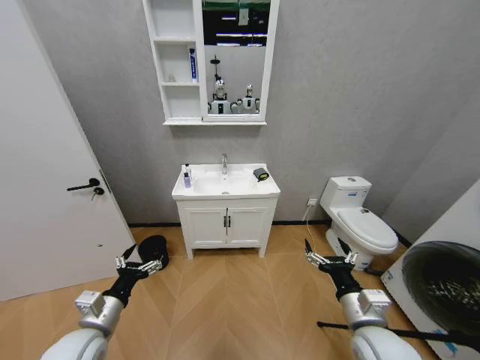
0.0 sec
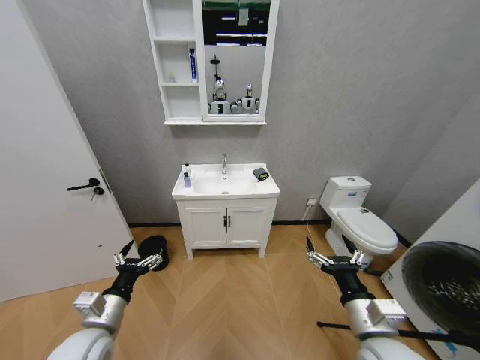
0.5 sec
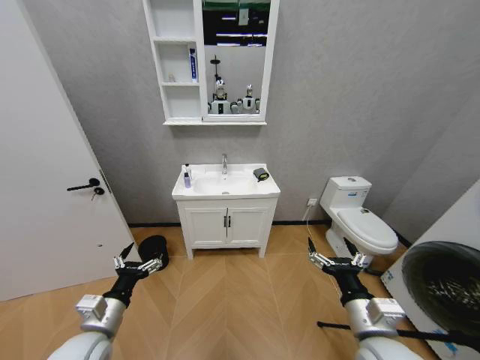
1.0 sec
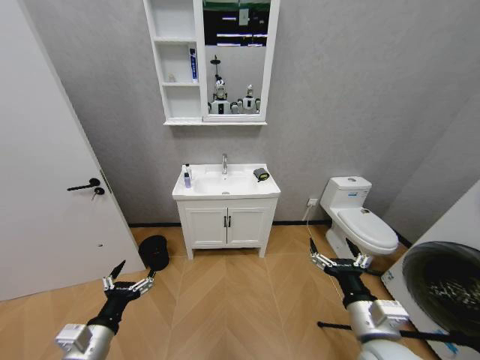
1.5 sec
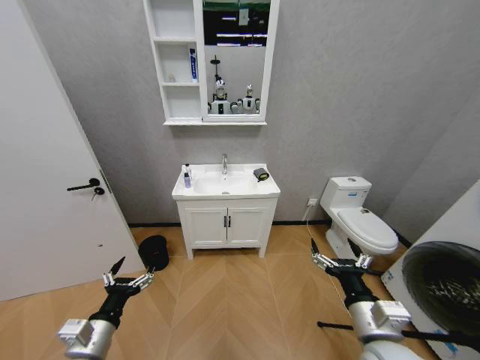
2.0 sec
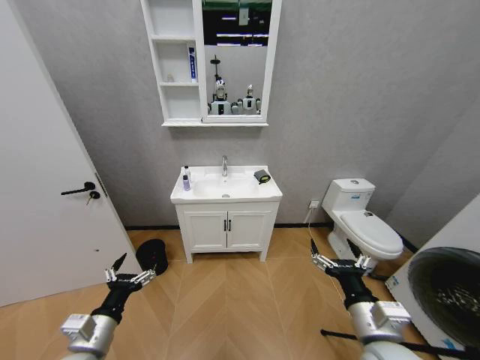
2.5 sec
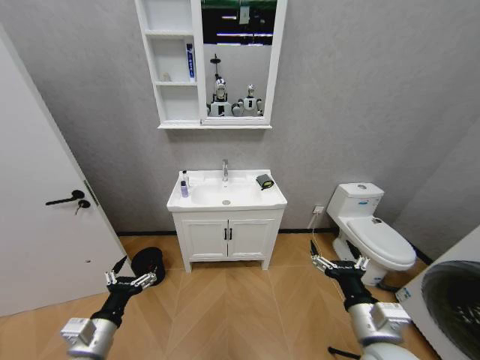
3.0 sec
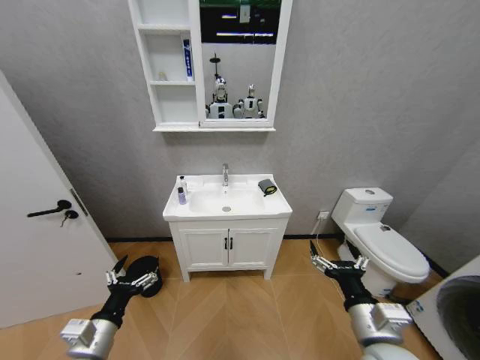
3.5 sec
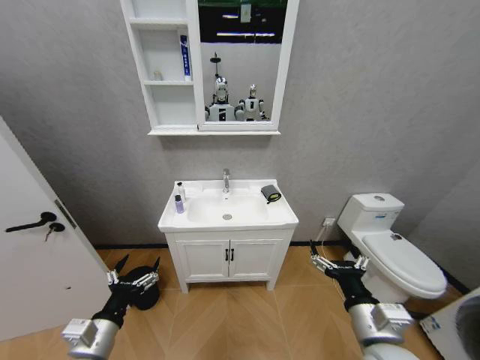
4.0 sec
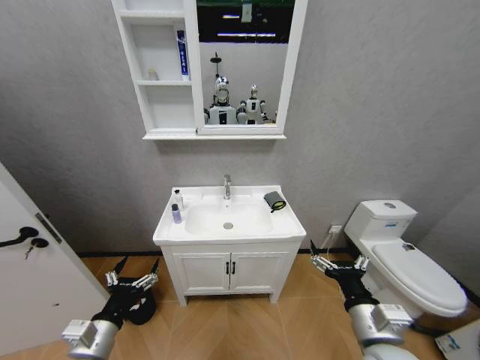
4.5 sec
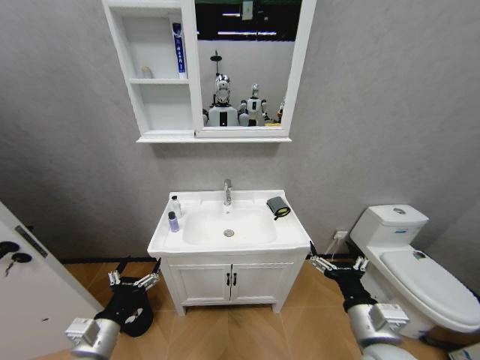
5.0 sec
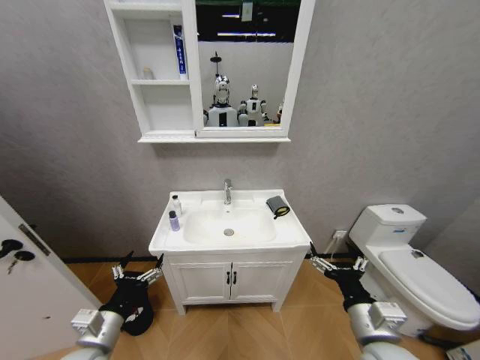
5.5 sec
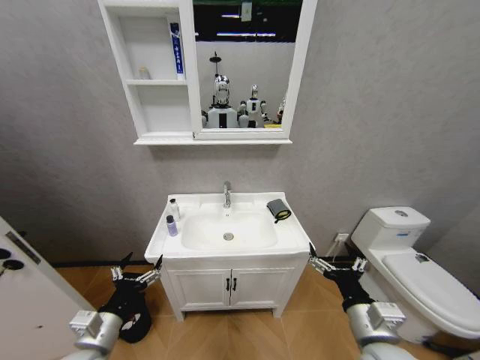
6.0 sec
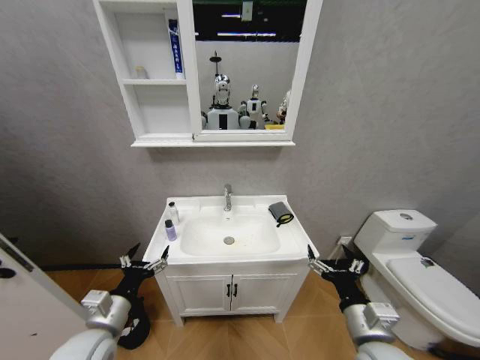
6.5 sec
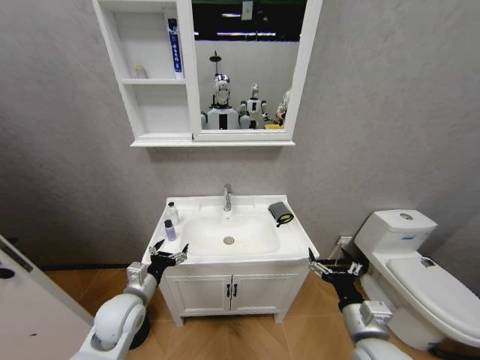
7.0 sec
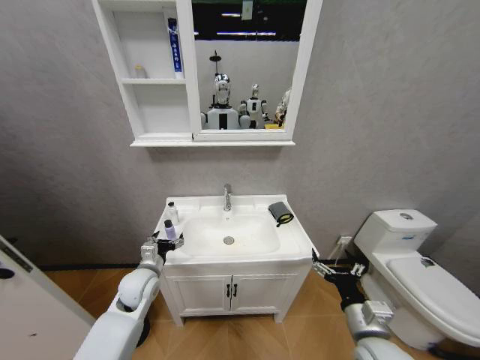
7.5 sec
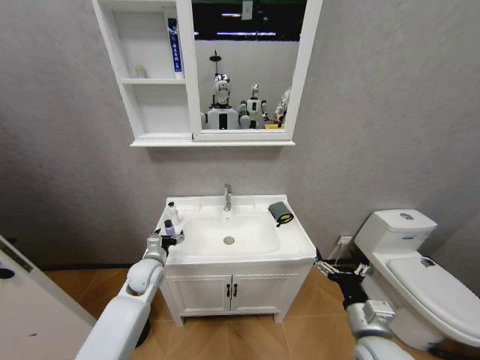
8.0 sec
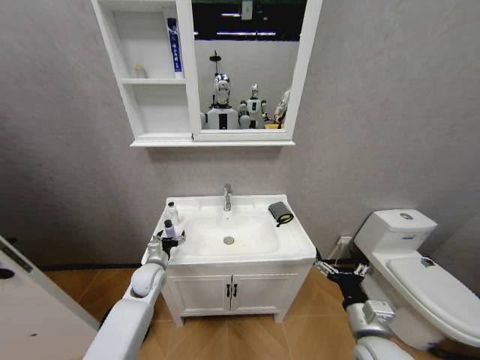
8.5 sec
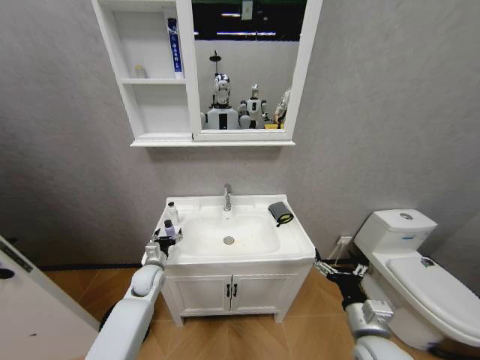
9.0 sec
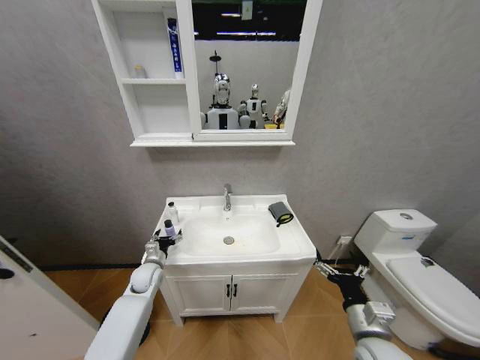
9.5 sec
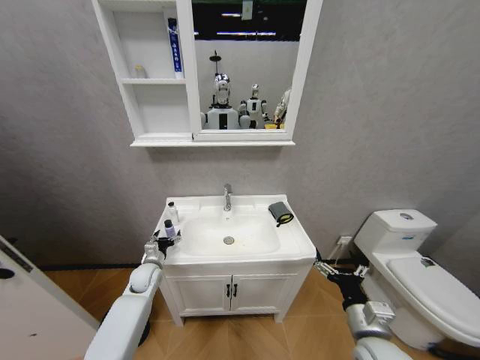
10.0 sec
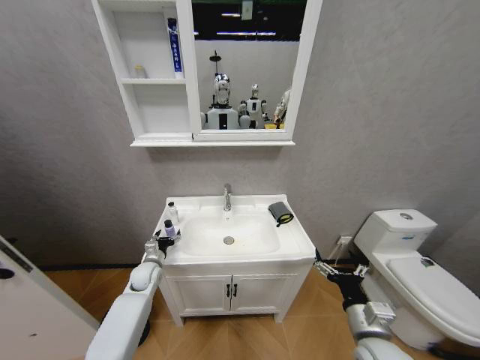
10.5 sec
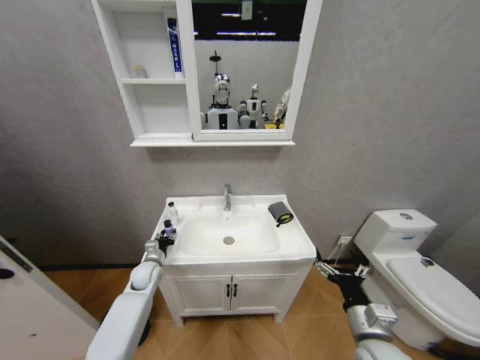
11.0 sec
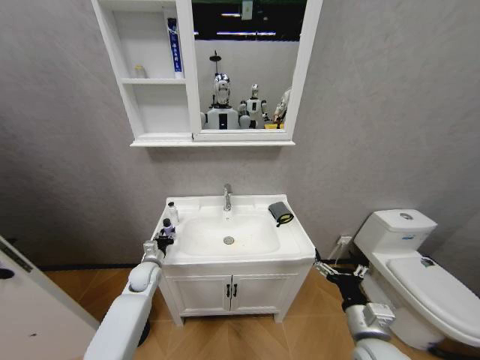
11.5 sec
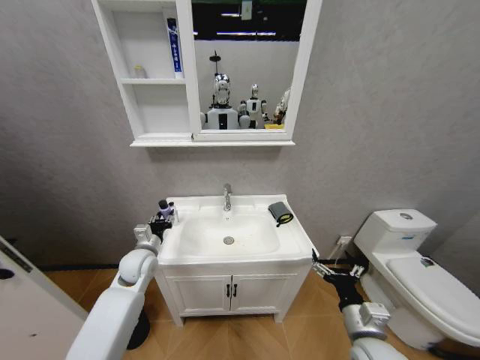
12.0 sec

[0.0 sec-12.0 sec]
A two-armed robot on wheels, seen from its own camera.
Task of the whole recording: Move facial cleanser and shampoo from washbasin to cabinet, then wipe washbasin with towel.
6.0 sec to 8.0 sec: The right gripper travels downward by about 5 cm, while the left gripper goes about 20 cm forward.
8.0 sec to 10.0 sec: The left gripper shifts about 5 cm downward.
10.0 sec to 12.0 sec: The left gripper heads upward, covering about 10 cm, and closes up.

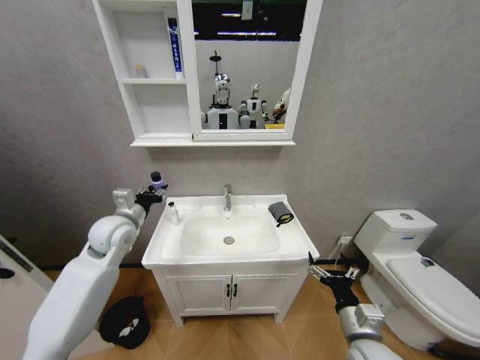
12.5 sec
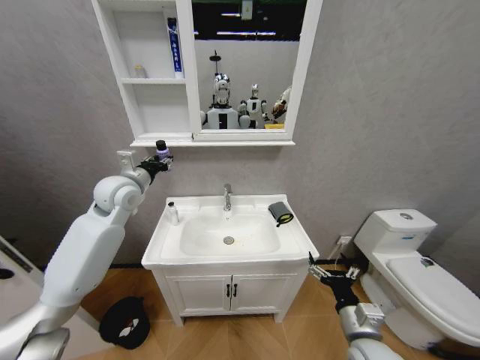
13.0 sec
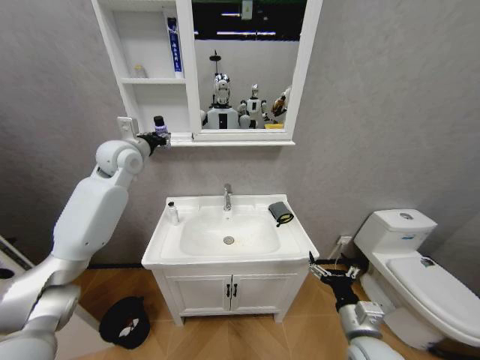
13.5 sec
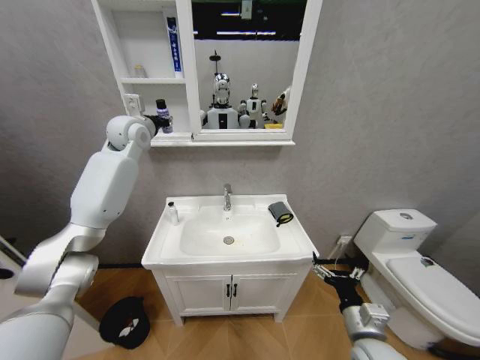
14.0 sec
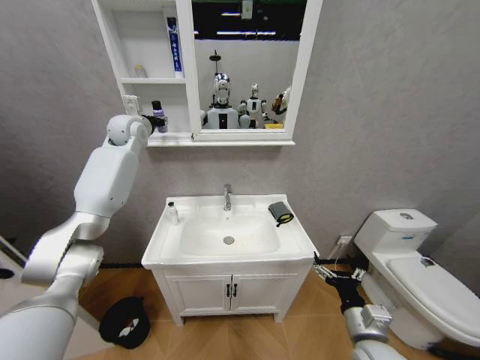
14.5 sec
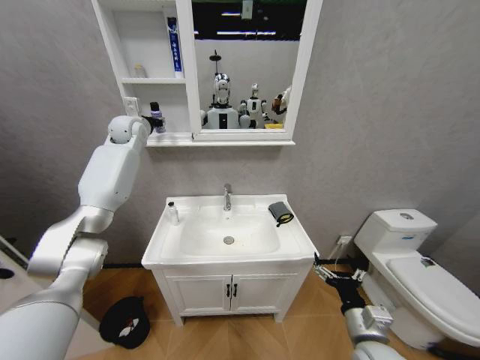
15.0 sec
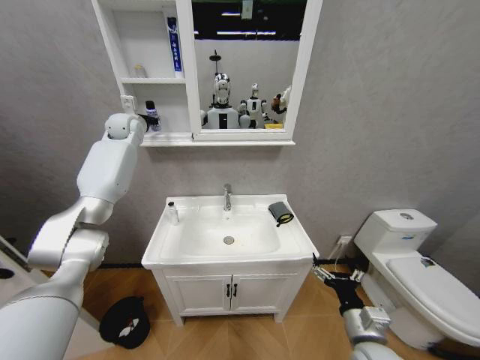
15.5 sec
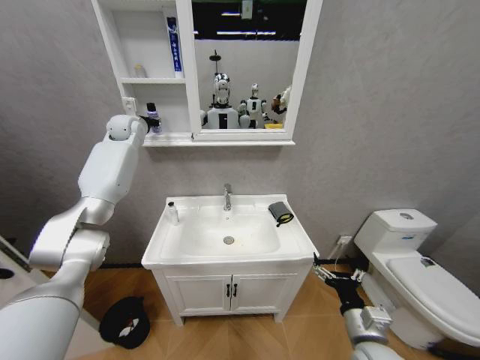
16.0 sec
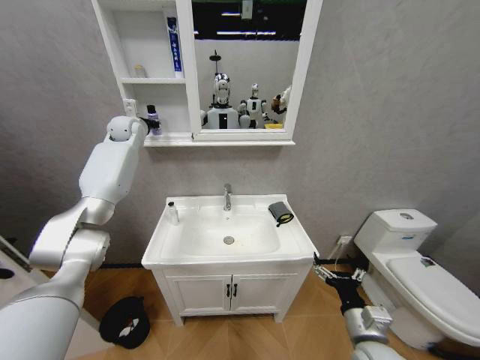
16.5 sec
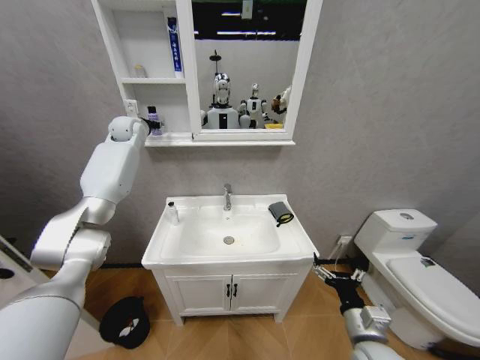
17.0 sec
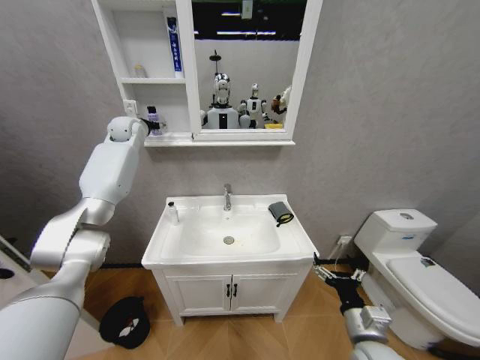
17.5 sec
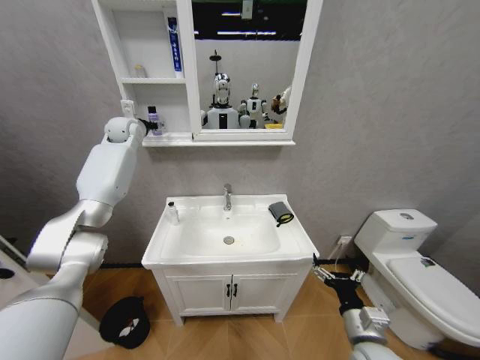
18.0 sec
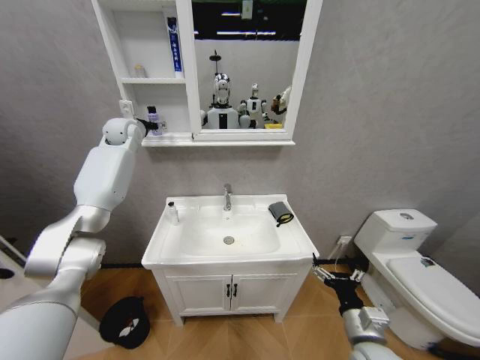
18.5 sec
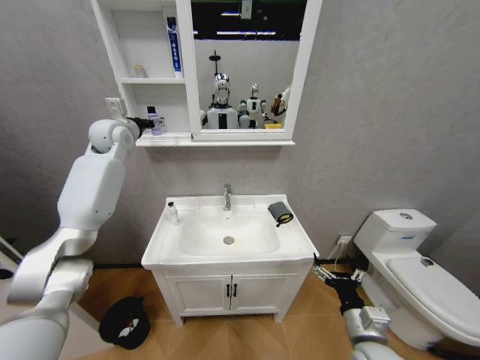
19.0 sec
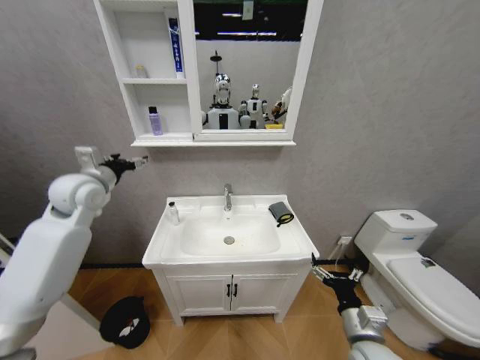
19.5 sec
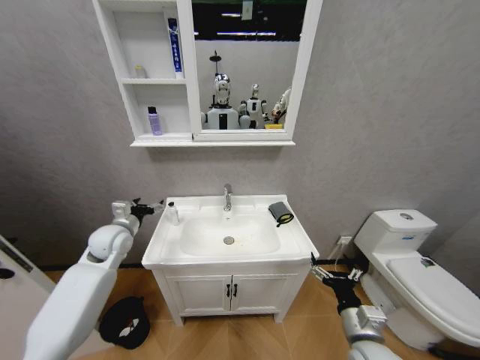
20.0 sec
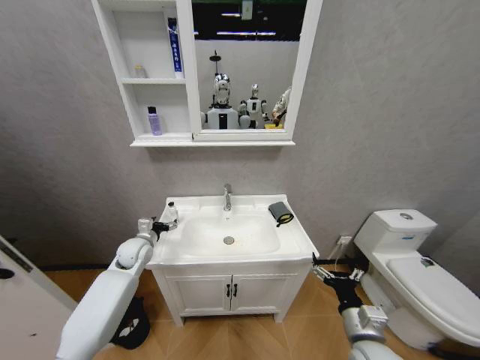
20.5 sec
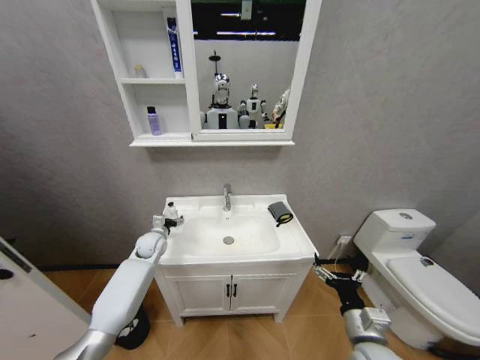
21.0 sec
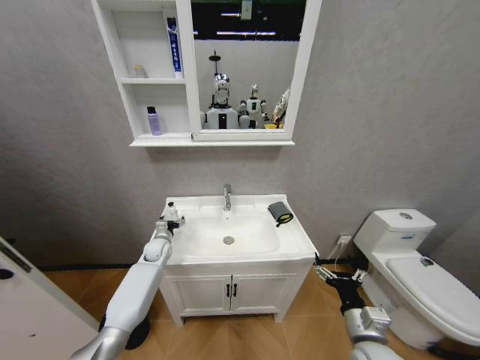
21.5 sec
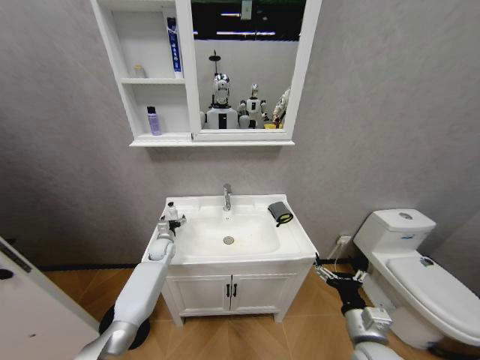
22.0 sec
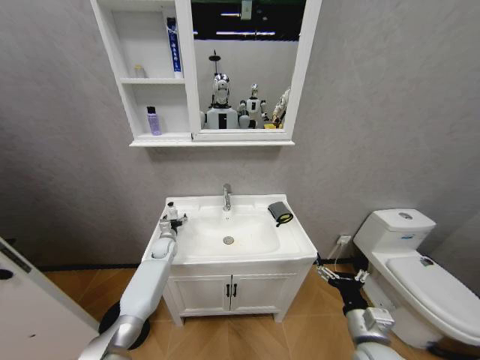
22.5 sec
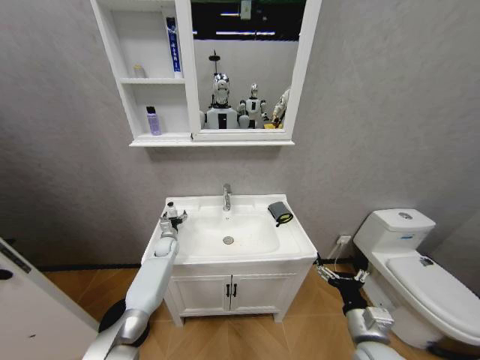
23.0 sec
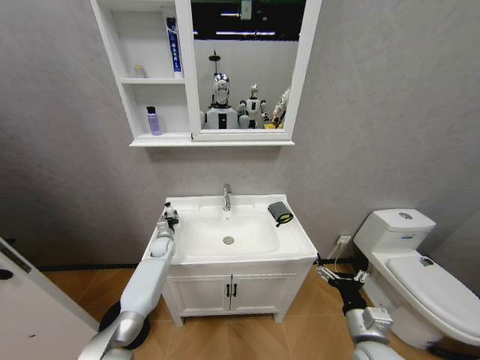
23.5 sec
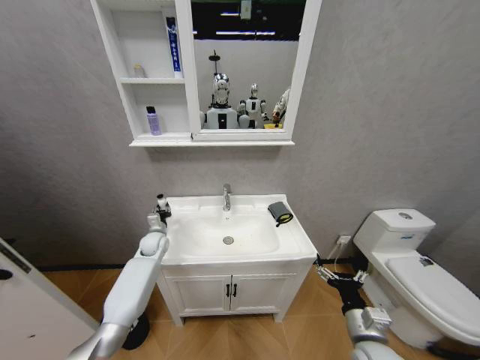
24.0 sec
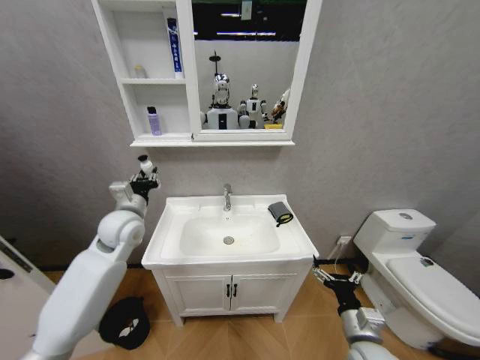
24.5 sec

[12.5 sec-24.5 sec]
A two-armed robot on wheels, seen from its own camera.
Task of the whole recording: Move facial cleanser and shampoo from washbasin to cabinet, then wipe washbasin with towel.
12.5 sec to 14.5 sec: The left gripper goes approximately 30 cm forward and upward.
14.5 sec to 16.5 sec: The left gripper changes place by roughly 5 cm.
16.5 sec to 18.5 sec: The left gripper opens up.
18.5 sec to 20.5 sec: The left gripper moves downward and backward, about 40 cm.
20.5 sec to 22.5 sec: The left gripper shifts approximately 15 cm downward and forward.
22.5 sec to 24.5 sec: The left gripper is displaced upward and backward by approximately 30 cm, and closes.

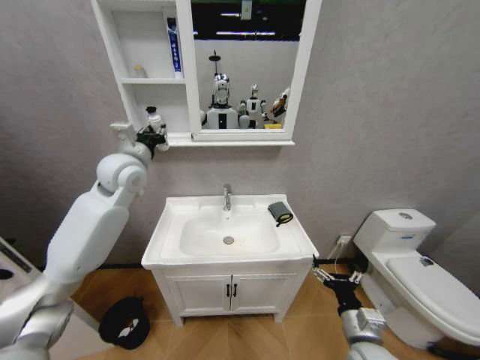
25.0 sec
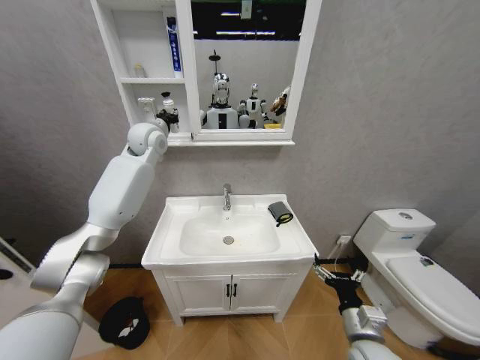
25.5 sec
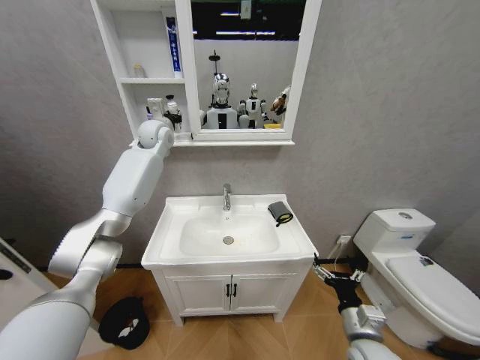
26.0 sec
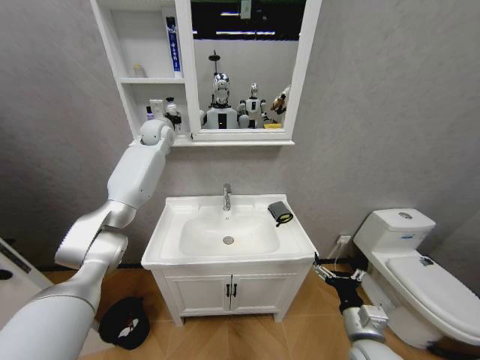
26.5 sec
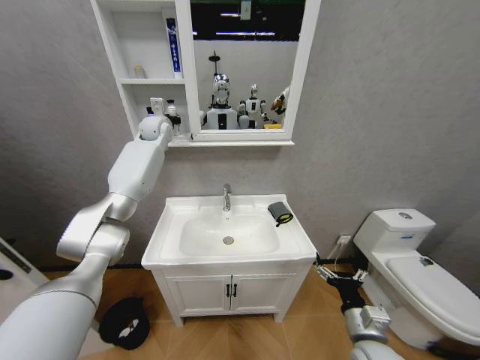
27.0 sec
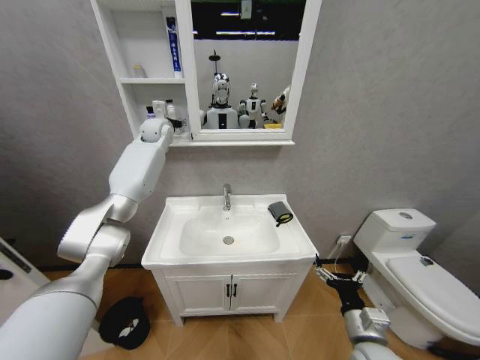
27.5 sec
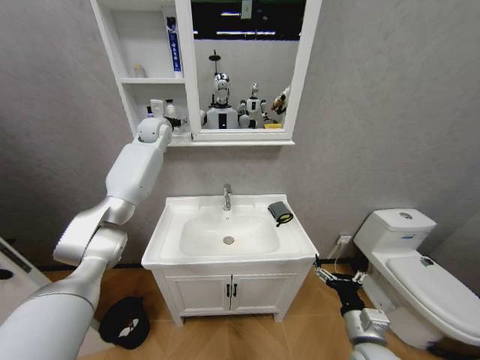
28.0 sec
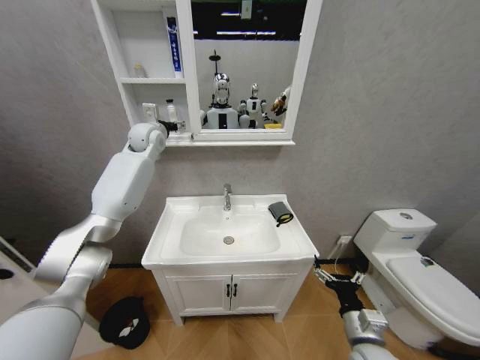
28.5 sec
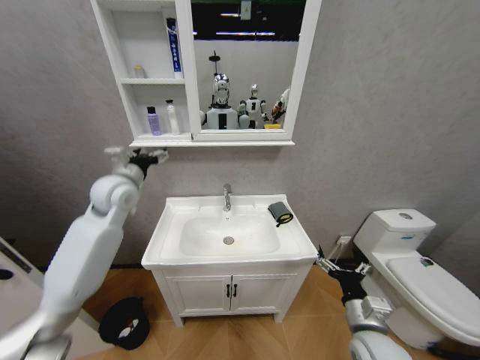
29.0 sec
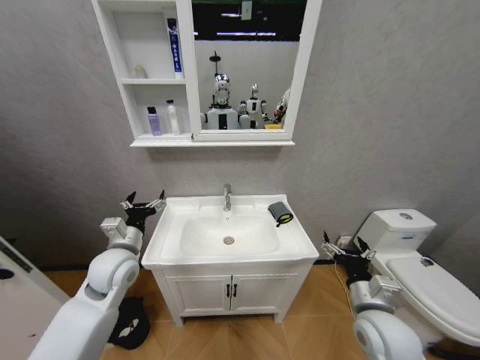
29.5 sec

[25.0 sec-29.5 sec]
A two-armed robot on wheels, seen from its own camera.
Task of the whole recording: Move facial cleanser and shampoo from washbasin to cabinet, then wipe washbasin with towel.
25.0 sec to 27.0 sec: The left gripper goes some 20 cm forward.
27.0 sec to 29.5 sec: The right gripper heads upward, covering some 5 cm. The left gripper heads backward and downward, covering about 40 cm, and opens its fingers.
